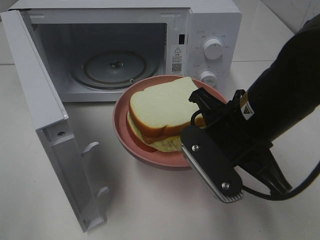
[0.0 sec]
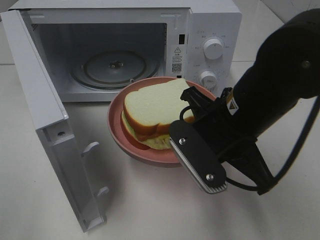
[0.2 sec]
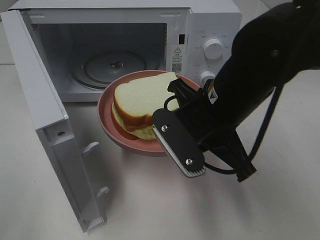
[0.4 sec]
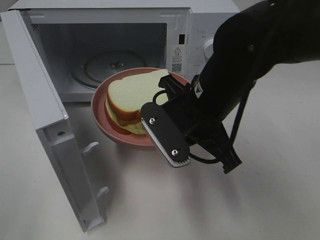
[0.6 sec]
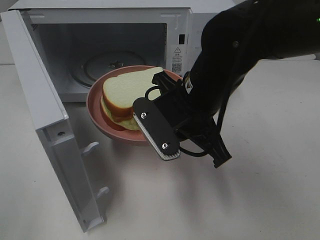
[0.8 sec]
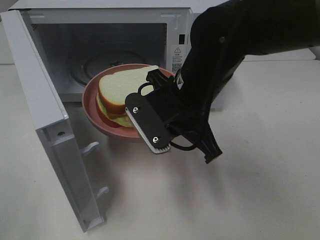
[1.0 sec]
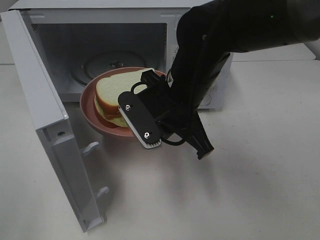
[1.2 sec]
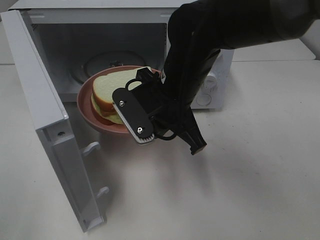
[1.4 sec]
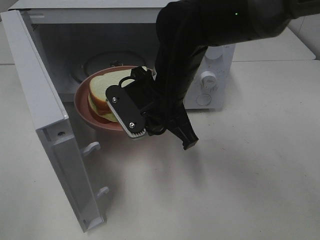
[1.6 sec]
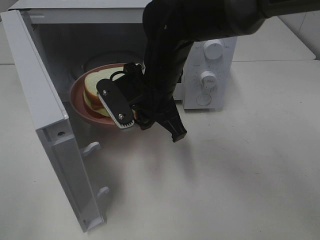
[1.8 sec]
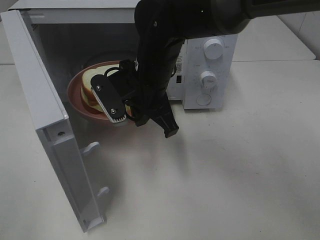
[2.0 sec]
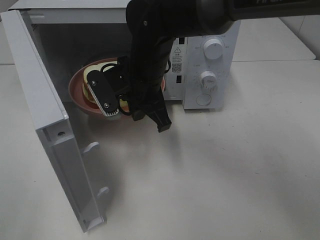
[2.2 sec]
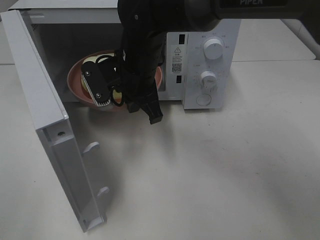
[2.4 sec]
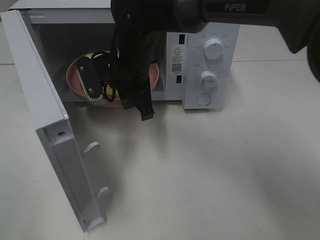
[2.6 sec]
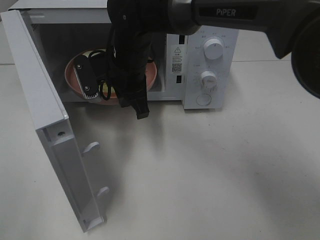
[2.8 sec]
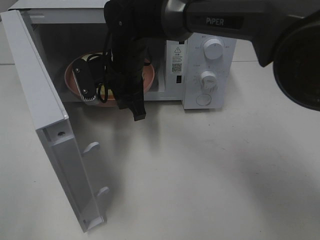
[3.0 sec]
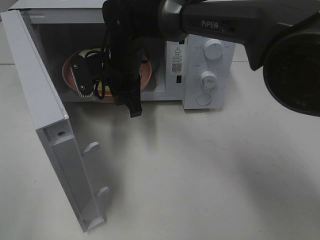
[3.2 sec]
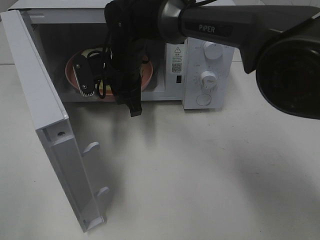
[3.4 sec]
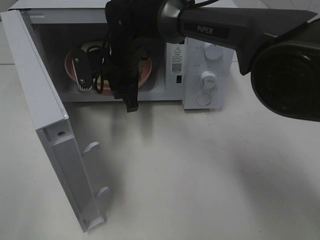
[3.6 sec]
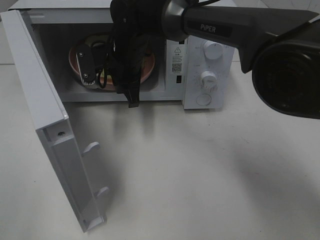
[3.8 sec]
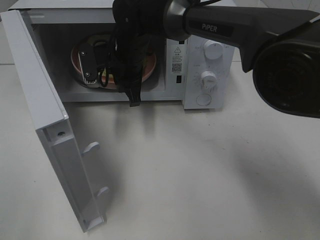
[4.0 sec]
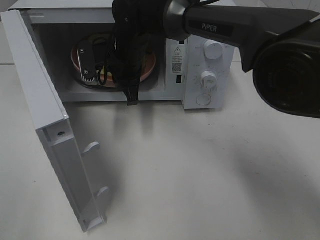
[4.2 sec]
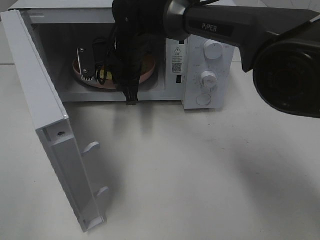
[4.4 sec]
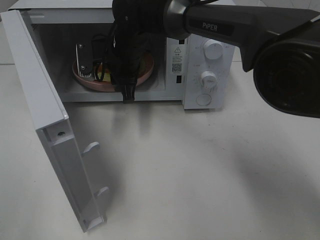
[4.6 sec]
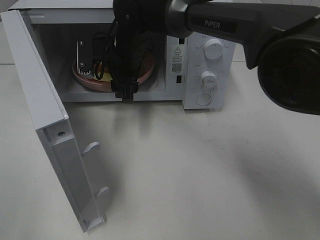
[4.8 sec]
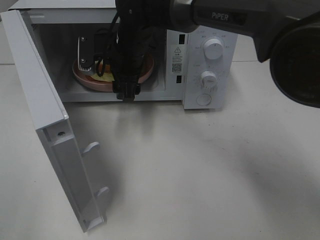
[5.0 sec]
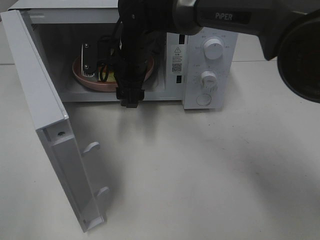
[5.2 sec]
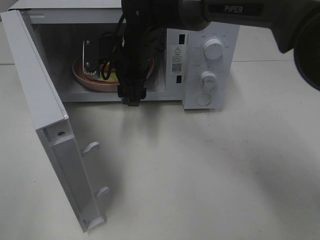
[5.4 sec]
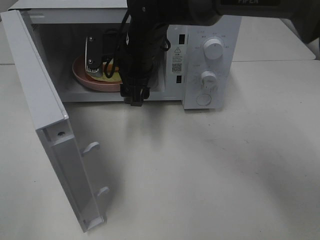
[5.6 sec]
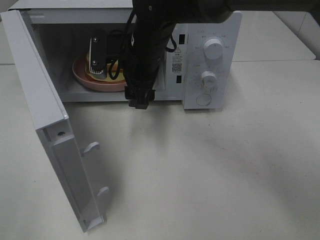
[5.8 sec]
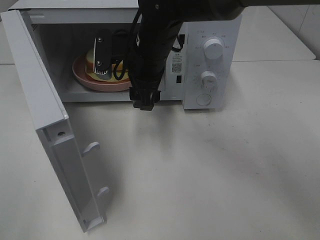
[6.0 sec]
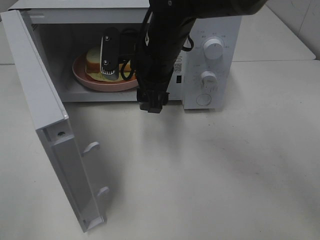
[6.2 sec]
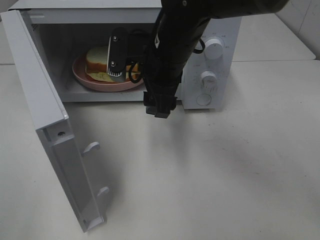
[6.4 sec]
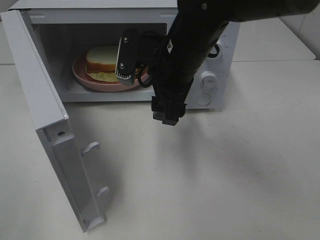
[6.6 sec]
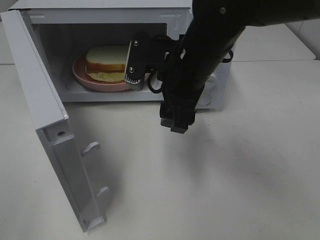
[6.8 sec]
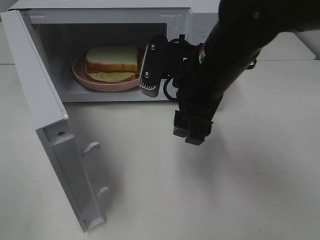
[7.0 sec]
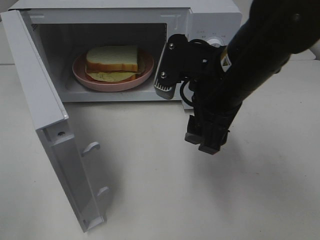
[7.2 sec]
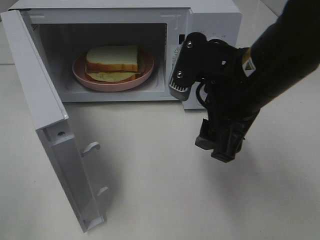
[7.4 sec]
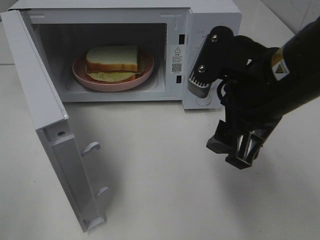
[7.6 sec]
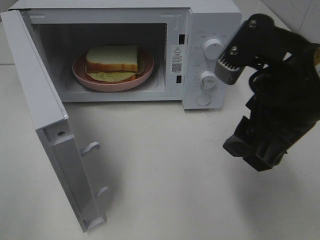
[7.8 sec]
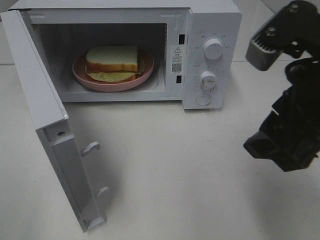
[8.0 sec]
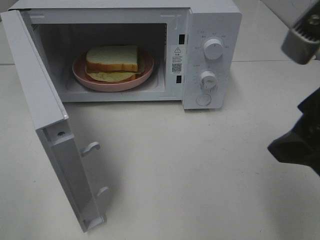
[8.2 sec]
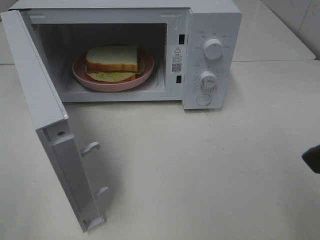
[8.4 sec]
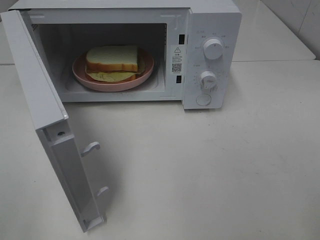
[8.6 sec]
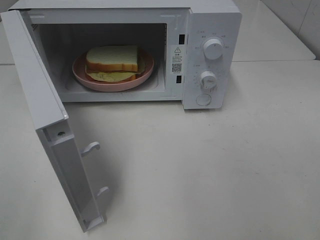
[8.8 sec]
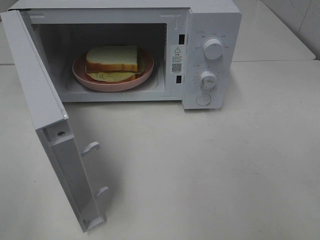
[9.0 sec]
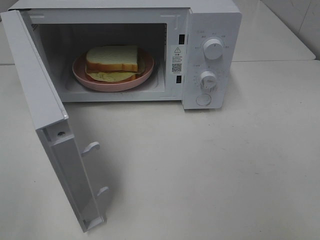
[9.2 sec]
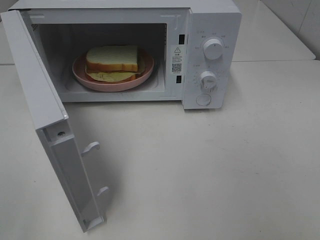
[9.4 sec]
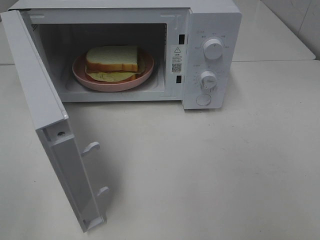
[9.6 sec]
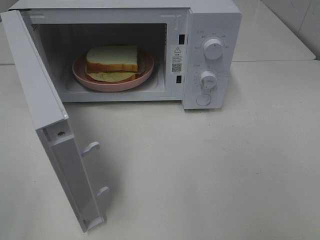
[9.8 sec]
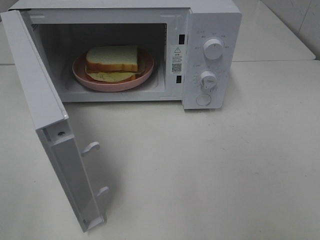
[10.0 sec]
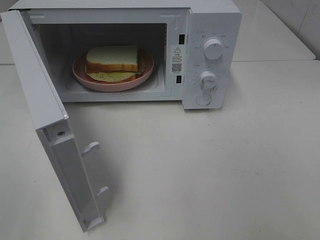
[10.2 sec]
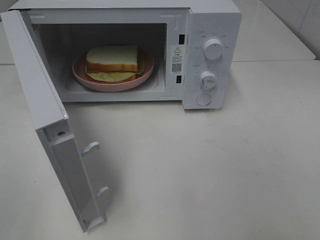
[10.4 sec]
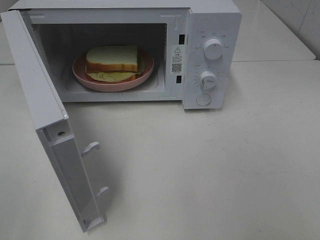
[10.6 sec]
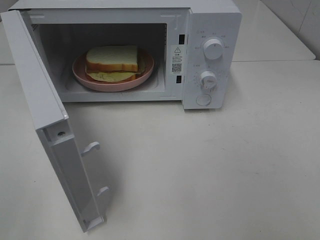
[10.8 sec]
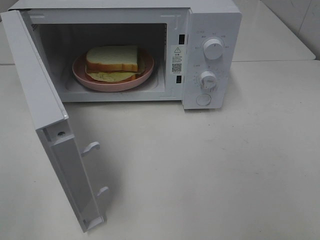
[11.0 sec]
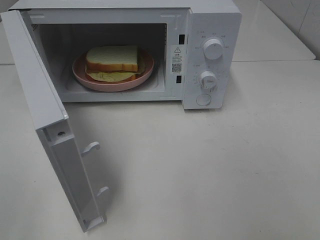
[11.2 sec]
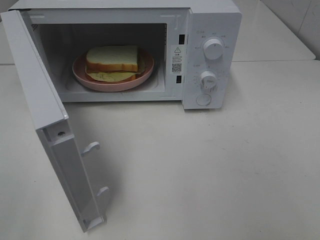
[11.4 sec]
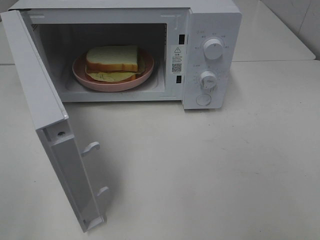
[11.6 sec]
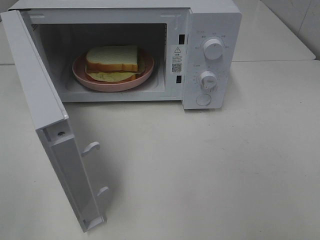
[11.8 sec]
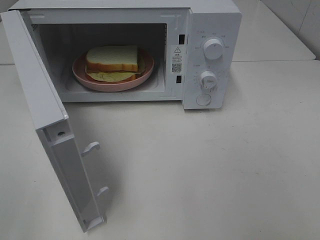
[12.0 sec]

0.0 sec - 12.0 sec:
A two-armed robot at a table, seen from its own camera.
Task of the whole recording: Heat Sandwich.
Step, 0.0 sec - 5.8 sec: Right hand: place the plate in the microwave.
0.0 sec - 1.6 sec: The right gripper heads forward and to the left, covering about 15 cm.
1.6 sec - 3.0 sec: The right gripper heads forward and to the left, covering approximately 10 cm.
3.0 sec - 4.4 sec: The grippers stay close to where they were, moving slightly.
4.4 sec - 6.0 sec: The right gripper travels backward by some 5 cm, and opens.
6.0 sec - 7.6 sec: The right gripper travels backward and to the right by approximately 20 cm.
7.6 sec - 9.0 sec: The right gripper travels backward and to the right by about 20 cm.
10.4 sec - 12.0 sec: Neither gripper changes place.

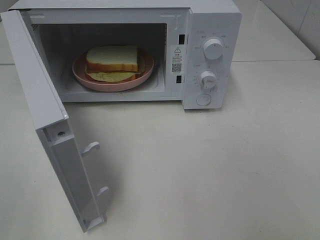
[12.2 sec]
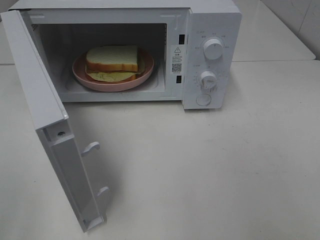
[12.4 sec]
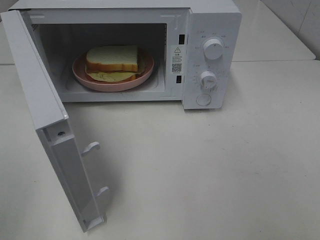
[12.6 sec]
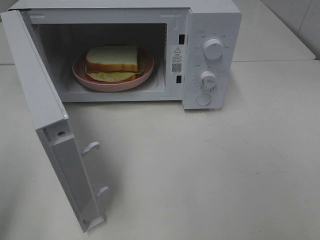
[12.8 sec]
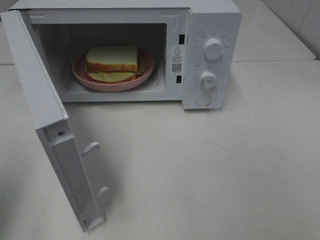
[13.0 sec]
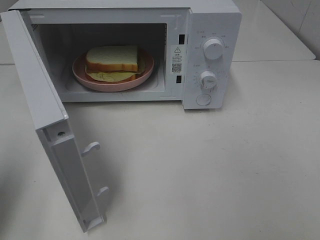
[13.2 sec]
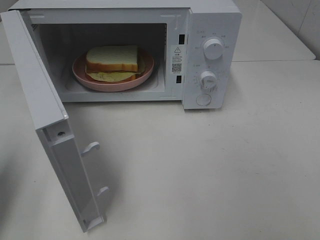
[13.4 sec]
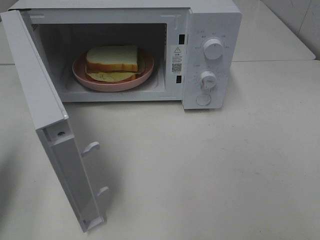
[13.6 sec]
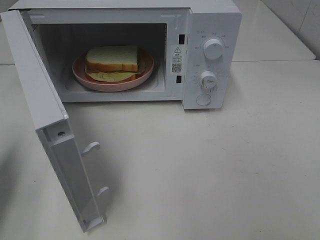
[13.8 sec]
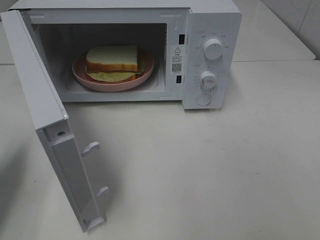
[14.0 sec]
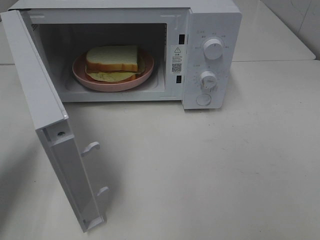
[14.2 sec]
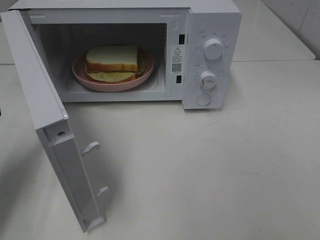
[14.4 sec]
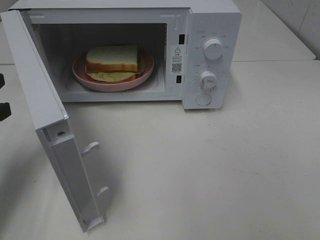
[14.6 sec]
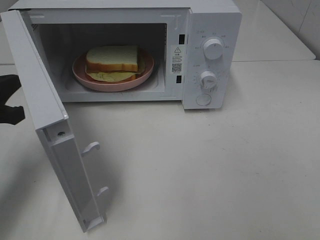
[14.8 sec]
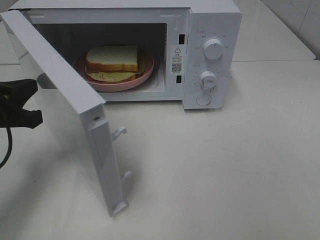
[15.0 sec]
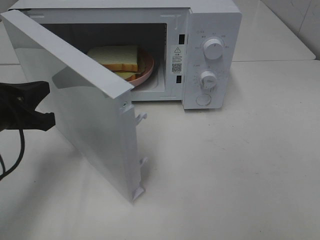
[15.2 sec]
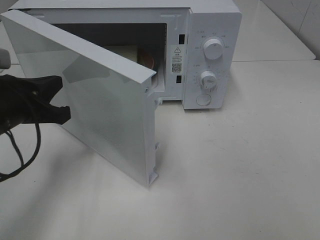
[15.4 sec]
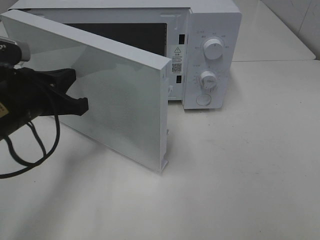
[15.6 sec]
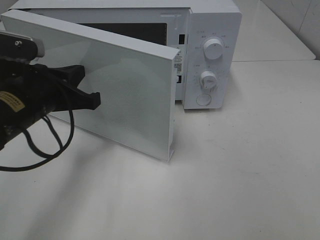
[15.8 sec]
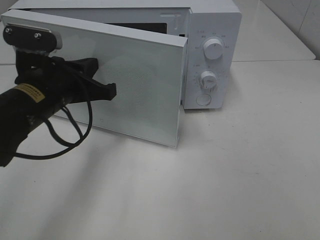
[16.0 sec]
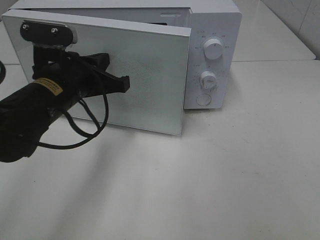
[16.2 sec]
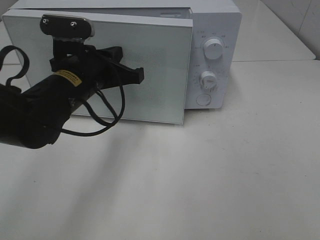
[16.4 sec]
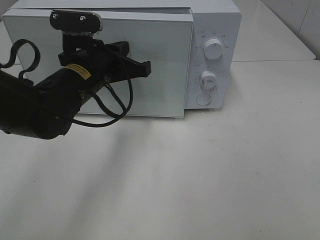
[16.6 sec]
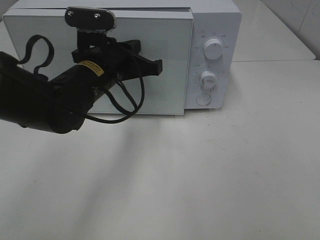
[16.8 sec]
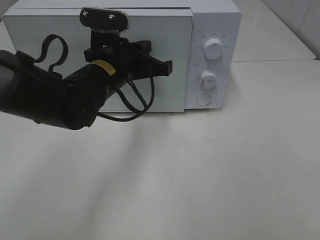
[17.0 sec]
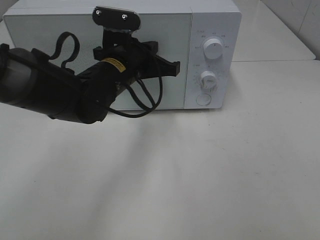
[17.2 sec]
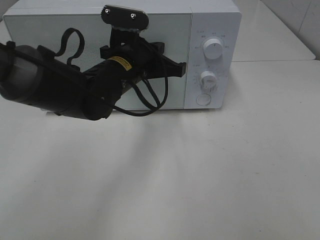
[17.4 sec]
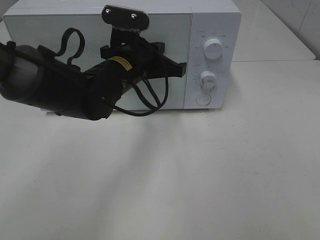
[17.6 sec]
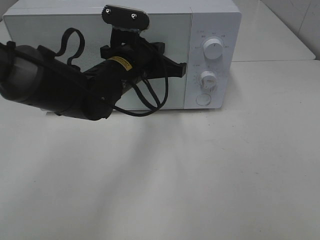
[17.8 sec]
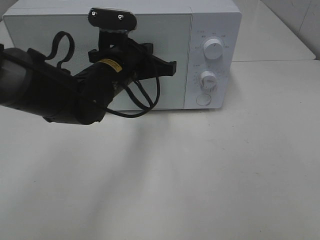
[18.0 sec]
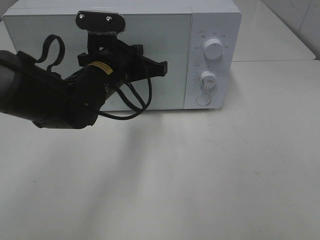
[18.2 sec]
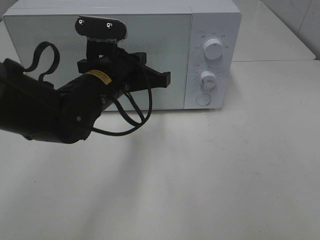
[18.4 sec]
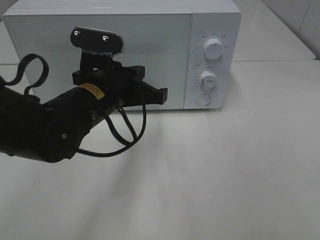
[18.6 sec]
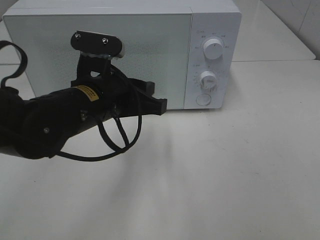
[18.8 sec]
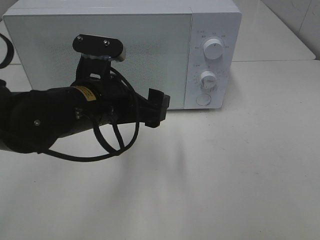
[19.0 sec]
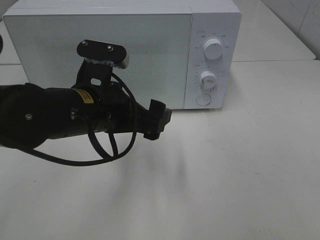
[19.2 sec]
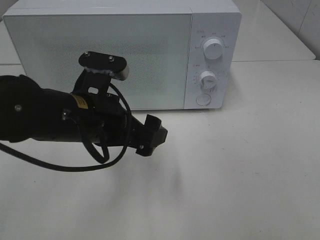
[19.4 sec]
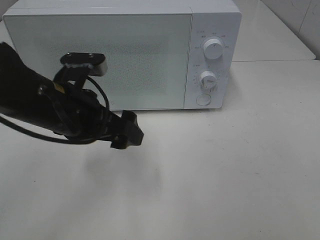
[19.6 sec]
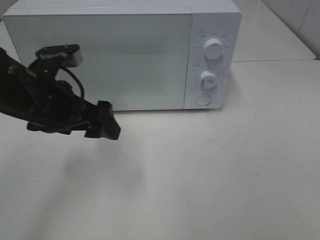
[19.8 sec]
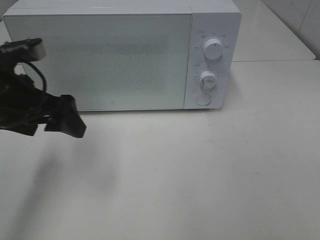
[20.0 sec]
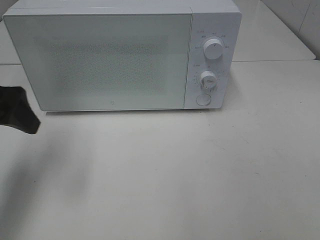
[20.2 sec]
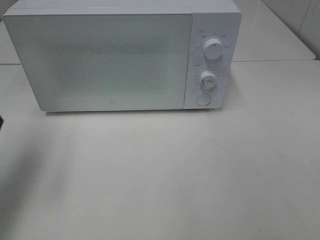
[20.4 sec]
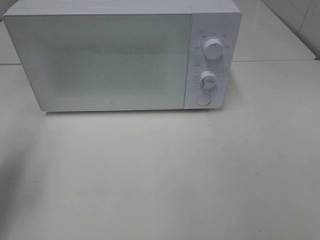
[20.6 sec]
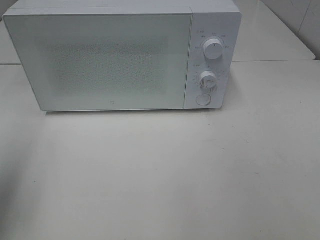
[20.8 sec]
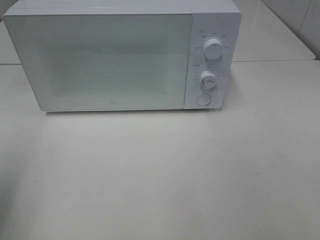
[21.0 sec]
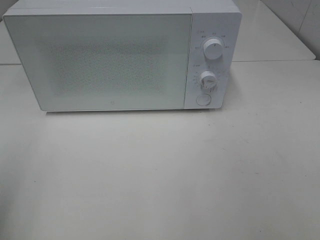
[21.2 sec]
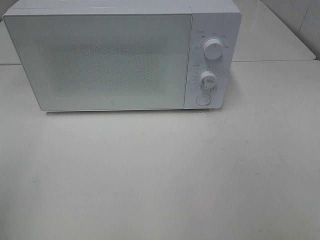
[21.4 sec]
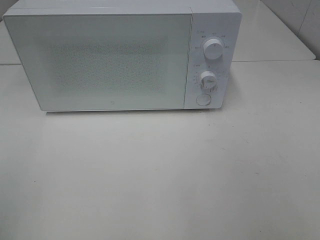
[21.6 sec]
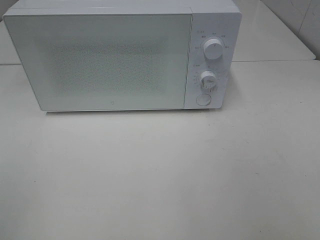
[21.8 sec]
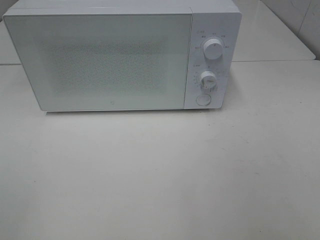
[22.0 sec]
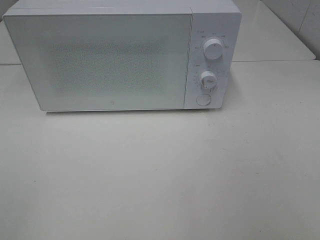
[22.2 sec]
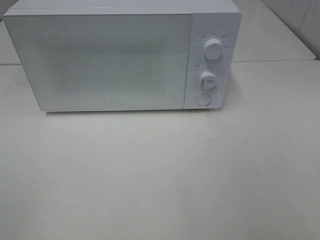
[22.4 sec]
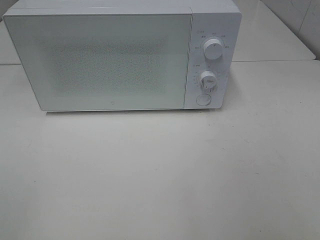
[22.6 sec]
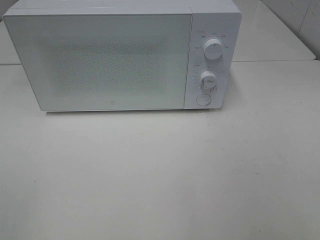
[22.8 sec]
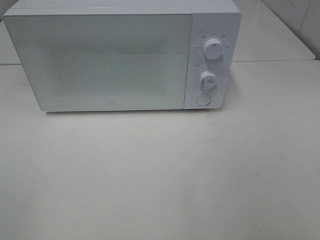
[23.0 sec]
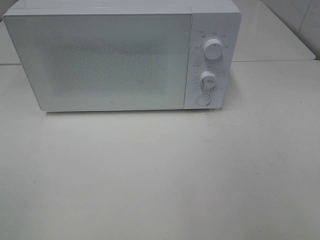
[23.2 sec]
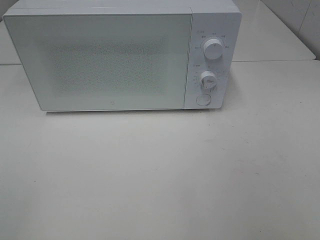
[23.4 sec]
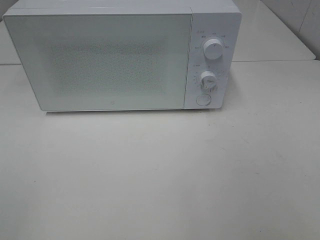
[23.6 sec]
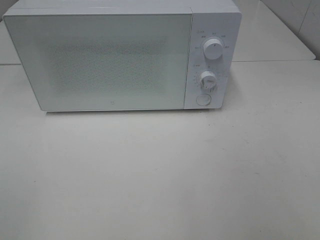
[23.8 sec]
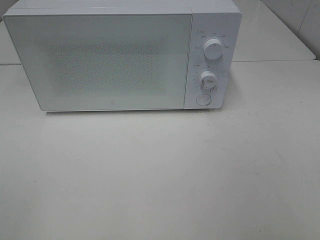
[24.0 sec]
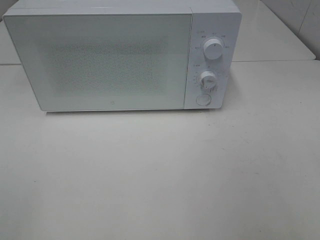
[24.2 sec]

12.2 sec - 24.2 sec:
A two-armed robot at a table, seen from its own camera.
Task of the whole recording: Heat Sandwich.
Step, 12.2 sec - 19.4 sec: Left hand: close the microwave door.
12.2 sec - 13.8 sec: The left gripper goes about 20 cm forward, and closes up.
13.8 sec - 15.2 sec: The left gripper goes roughly 10 cm to the right.
15.2 sec - 16.6 sec: The left gripper moves to the right and forward, roughly 15 cm.
16.6 sec - 18.2 sec: The grippers make only small movements.
18.2 sec - 19.8 sec: The left gripper is displaced to the left and backward by some 10 cm, and opens its fingers.
19.8 sec - 21.2 sec: The left gripper heads to the left, backward and upward, covering approximately 25 cm.
